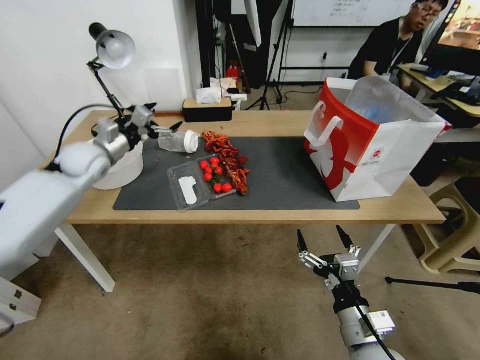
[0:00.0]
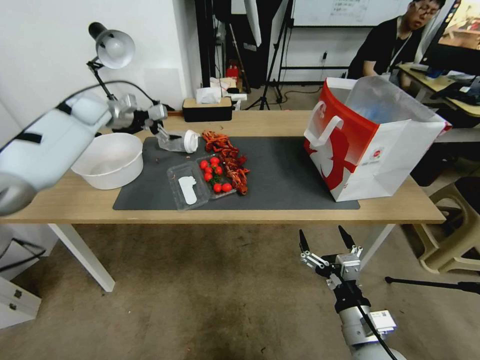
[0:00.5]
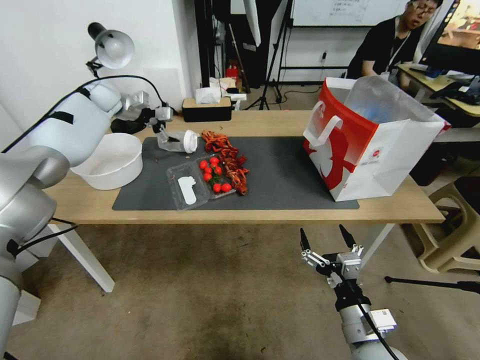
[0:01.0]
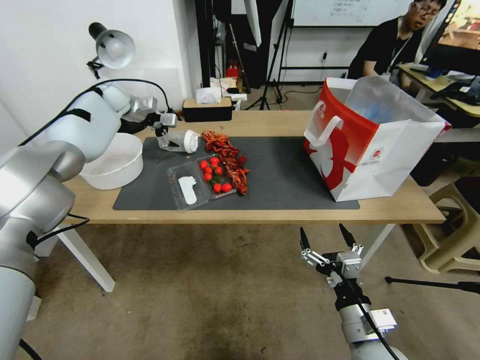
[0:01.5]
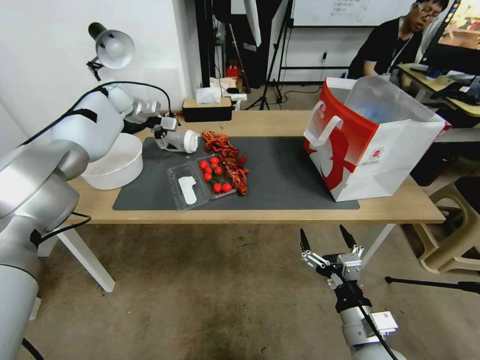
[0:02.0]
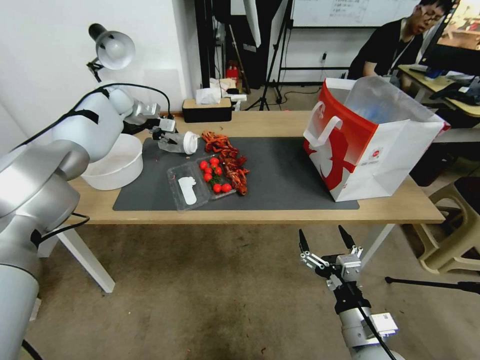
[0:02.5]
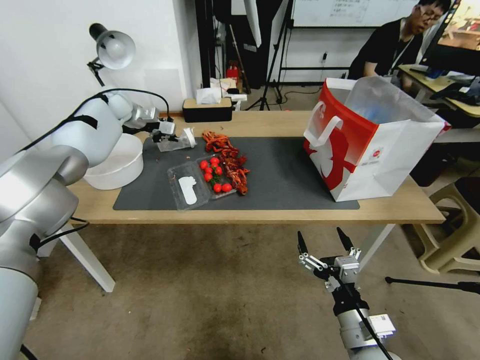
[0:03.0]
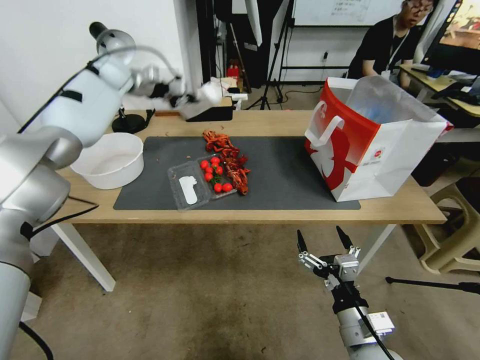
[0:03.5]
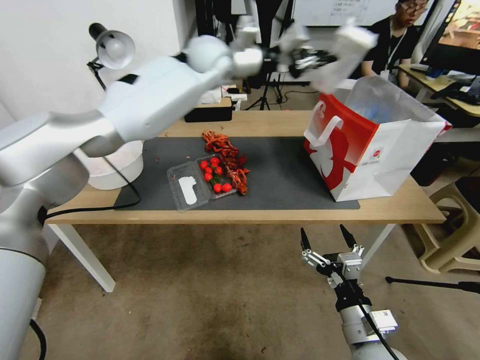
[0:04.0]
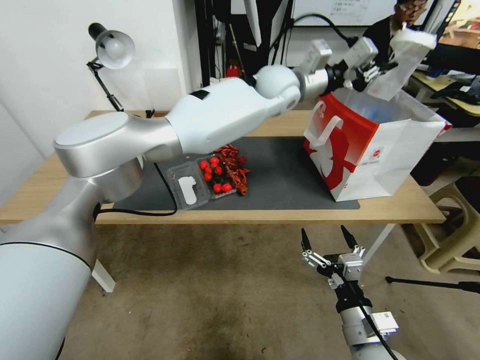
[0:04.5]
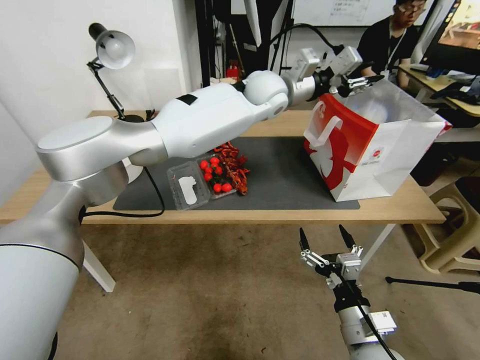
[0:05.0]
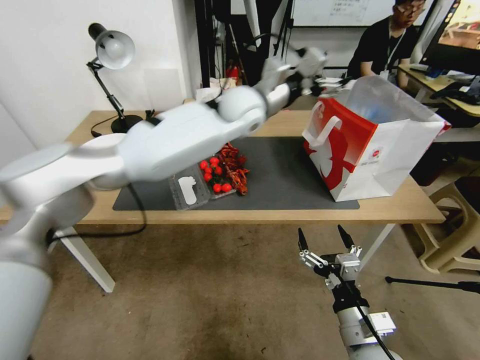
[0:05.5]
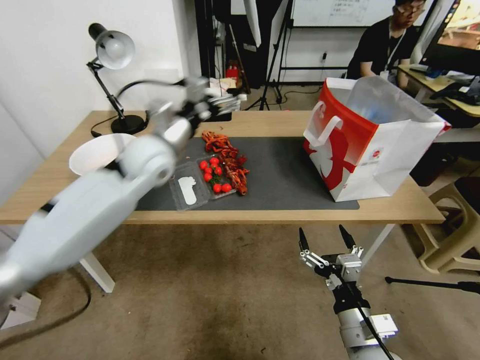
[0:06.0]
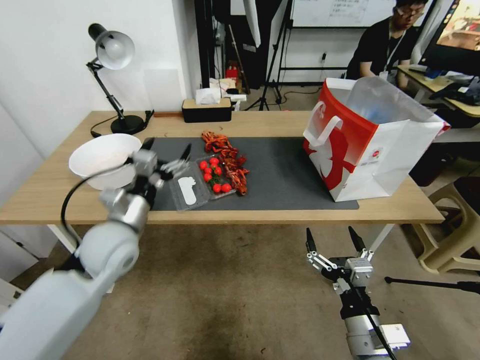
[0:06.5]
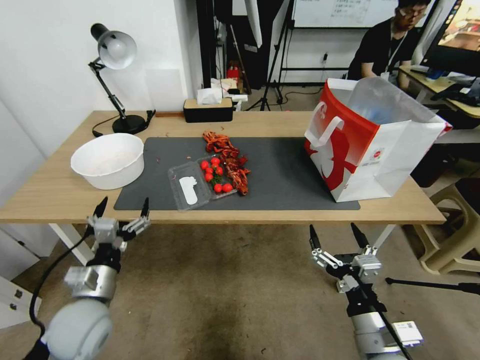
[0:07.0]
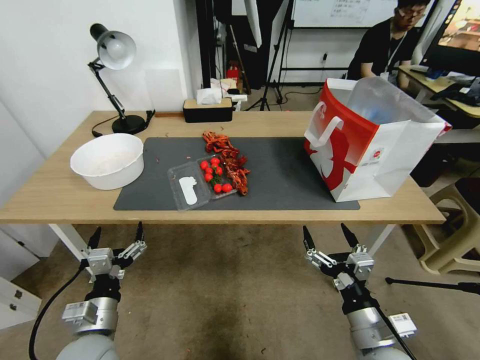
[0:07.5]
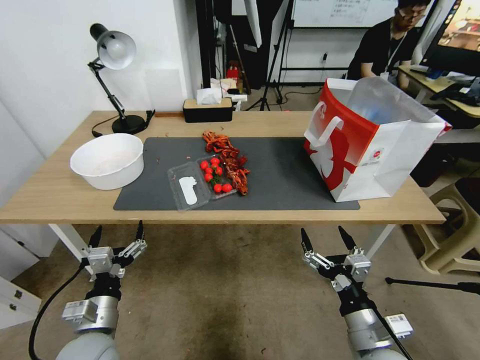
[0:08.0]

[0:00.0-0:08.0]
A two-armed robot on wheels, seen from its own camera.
0:00.0 to 0:02.0: The left gripper travels forward and upward by some 20 cm.
0:02.0 to 0:04.0: The left gripper goes roughly 30 cm to the right, and closes.
0:04.0 to 0:06.0: The left gripper heads backward, to the left and downward, covering approximately 30 cm, and opens.
0:06.0 to 0:08.0: The left gripper heads backward and downward, covering about 35 cm.

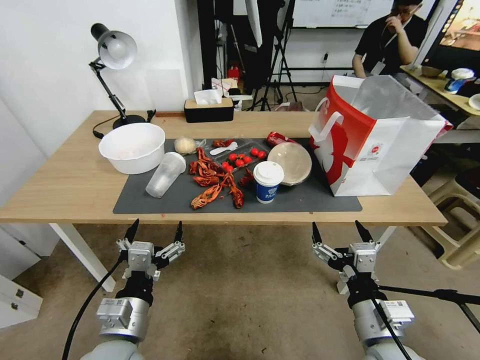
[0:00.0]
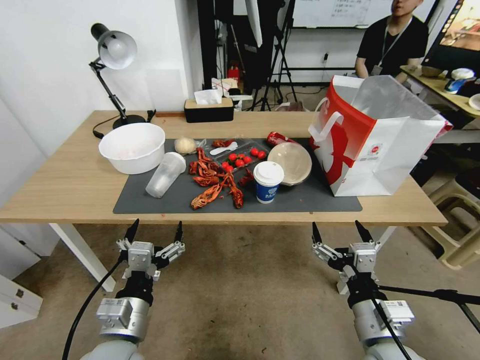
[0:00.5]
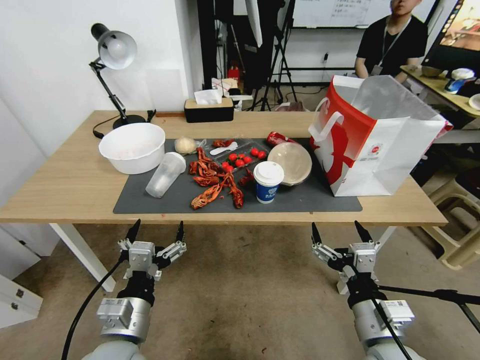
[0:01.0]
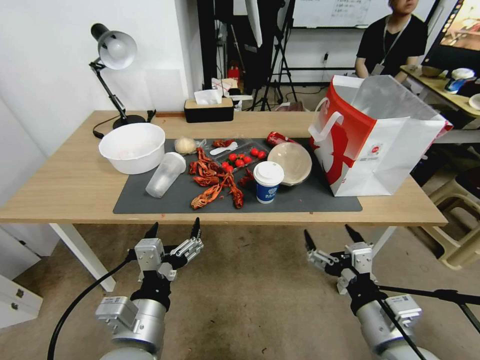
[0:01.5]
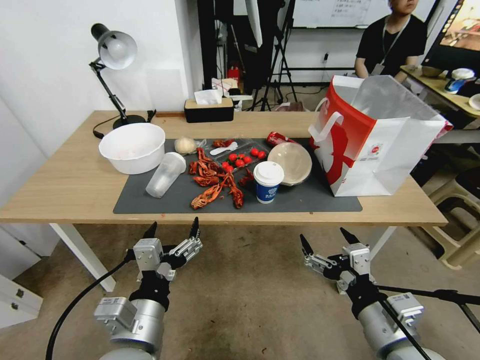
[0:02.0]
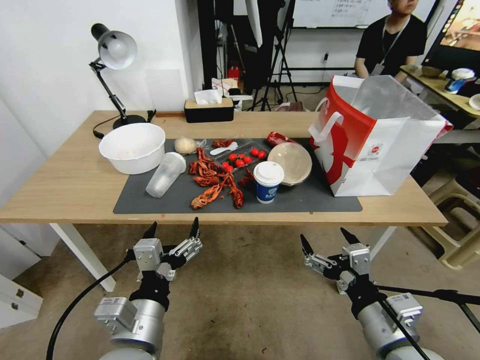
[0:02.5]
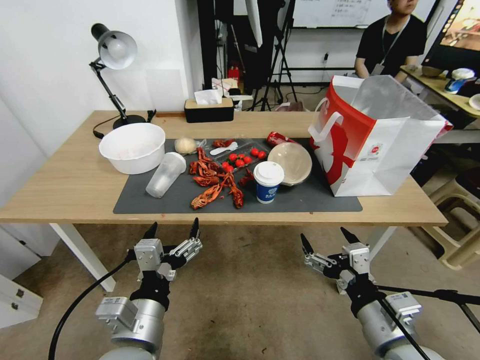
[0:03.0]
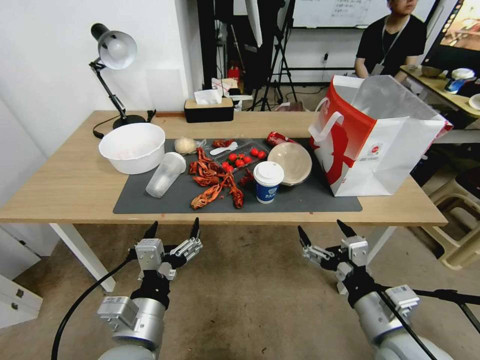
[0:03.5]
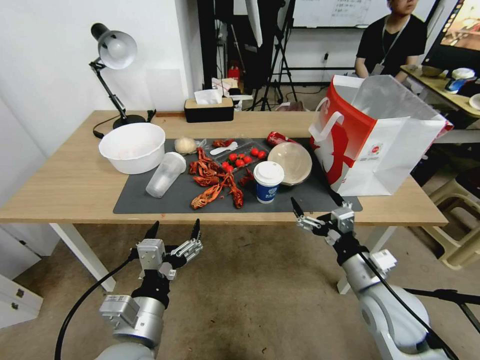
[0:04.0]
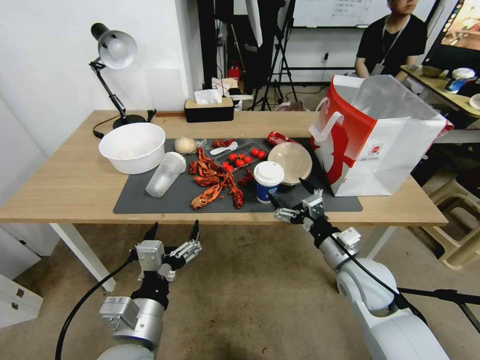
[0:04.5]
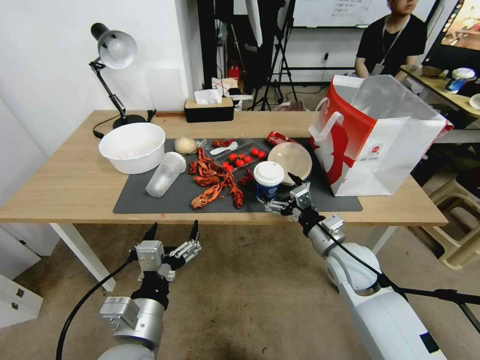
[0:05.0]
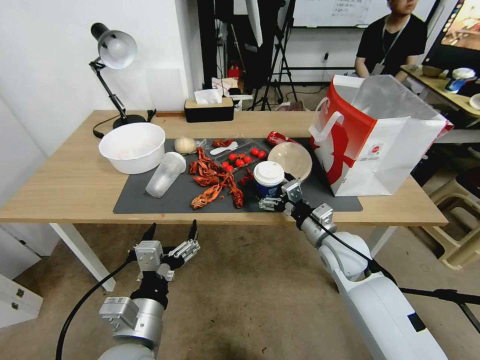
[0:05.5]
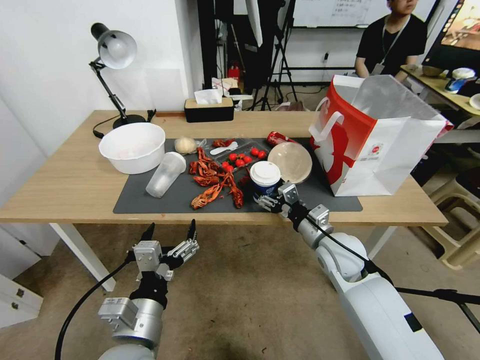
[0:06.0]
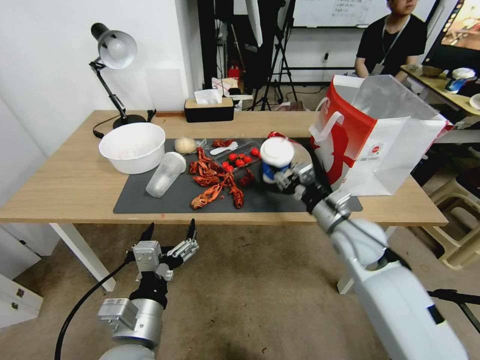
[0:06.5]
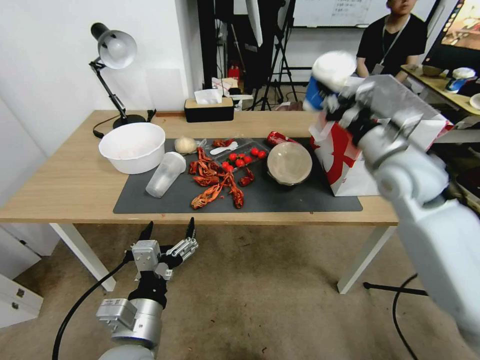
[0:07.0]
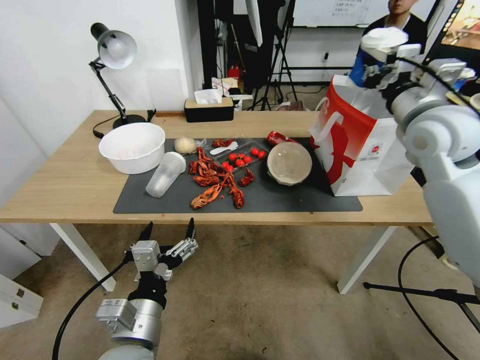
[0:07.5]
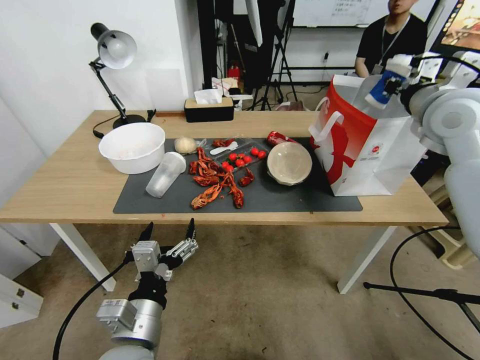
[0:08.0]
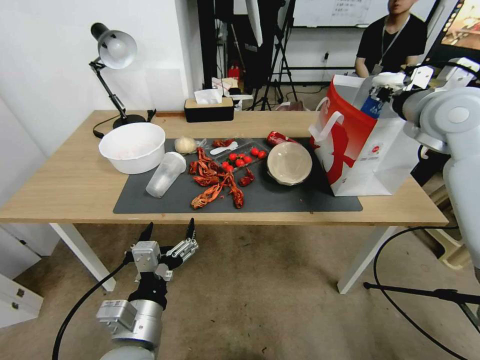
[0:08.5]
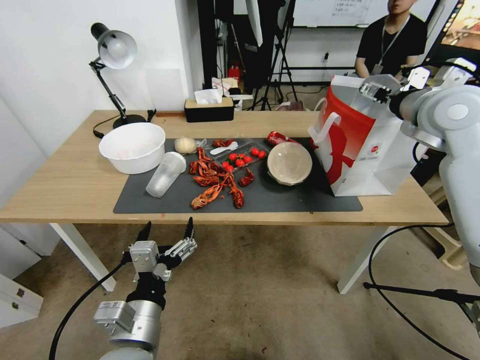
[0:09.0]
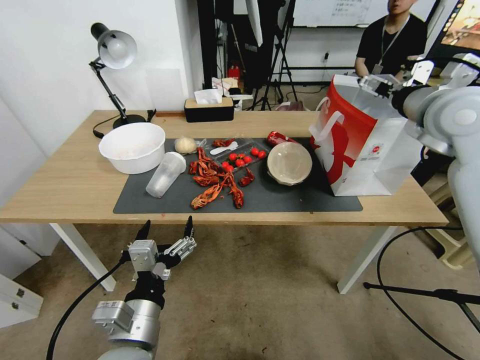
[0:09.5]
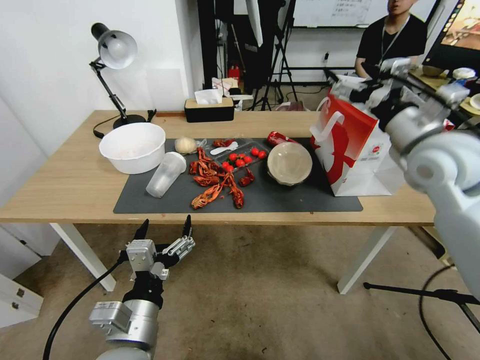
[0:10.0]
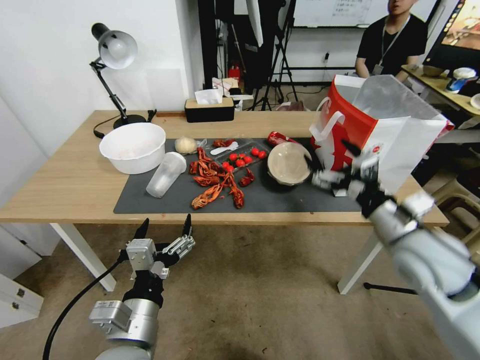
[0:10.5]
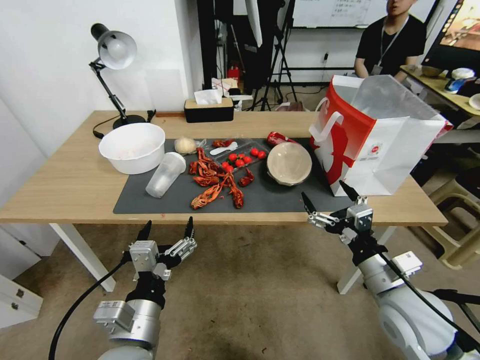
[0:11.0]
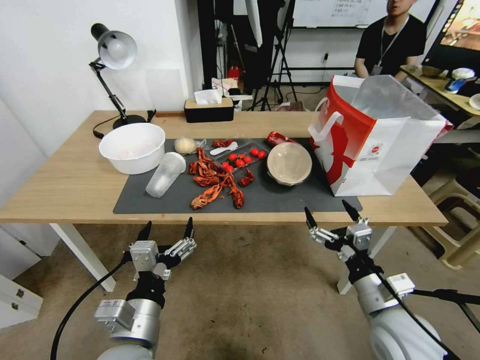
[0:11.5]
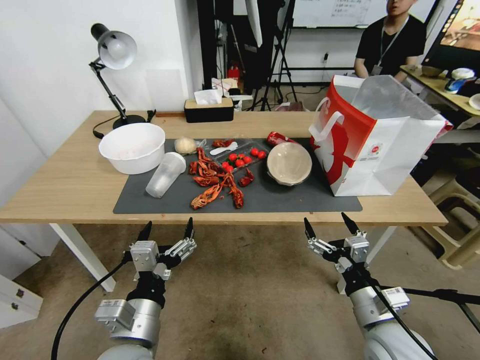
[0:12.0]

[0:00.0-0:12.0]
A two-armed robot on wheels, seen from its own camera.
0:02.0 to 0:04.0: The right gripper shifts roughly 10 cm forward.
0:04.0 to 0:06.0: The right gripper heads forward, covering some 10 cm.
0:06.0 to 0:08.0: The right gripper heads upward and to the right, covering some 30 cm, and closes up.
0:08.0 to 0:10.0: The right gripper moves downward, approximately 5 cm, and opens its fingers.
0:10.0 to 0:12.0: The right gripper heads downward and backward, covering some 35 cm.

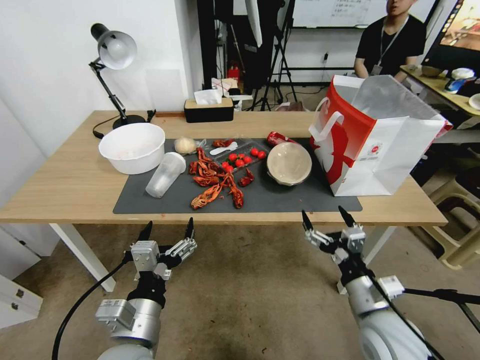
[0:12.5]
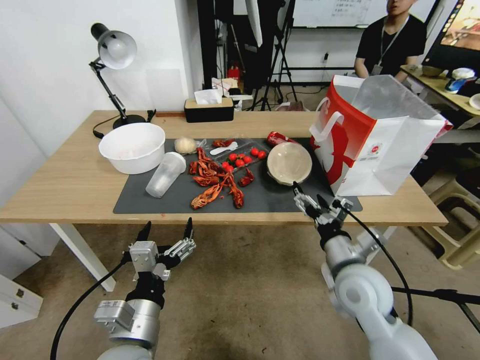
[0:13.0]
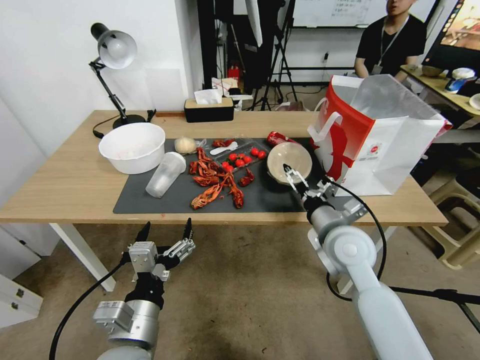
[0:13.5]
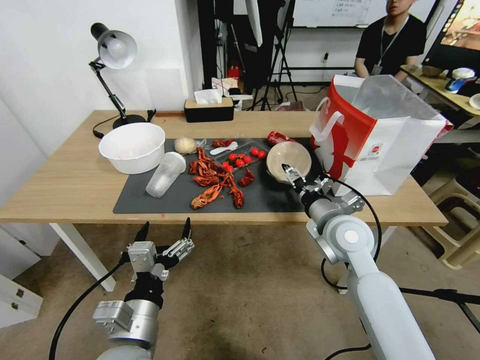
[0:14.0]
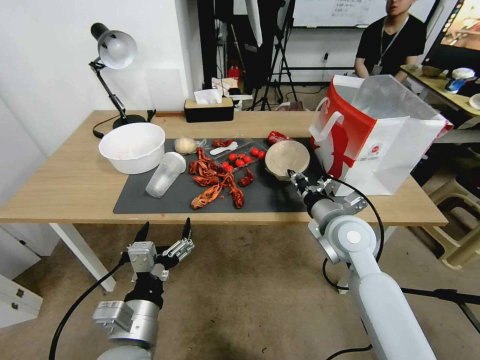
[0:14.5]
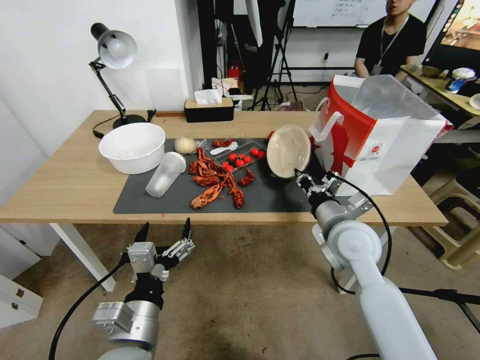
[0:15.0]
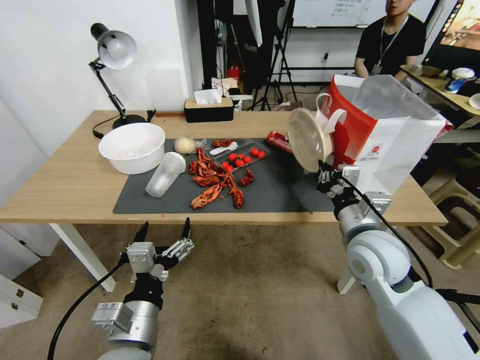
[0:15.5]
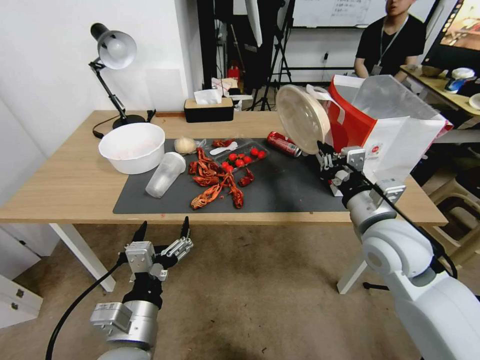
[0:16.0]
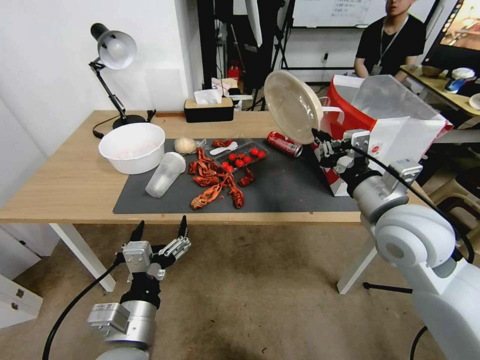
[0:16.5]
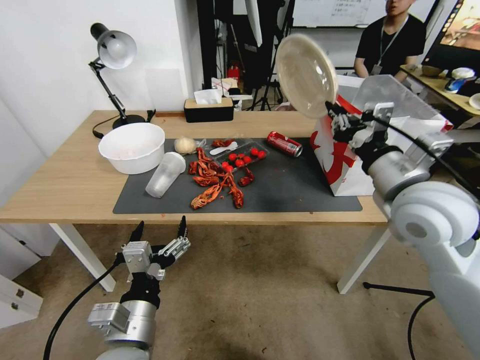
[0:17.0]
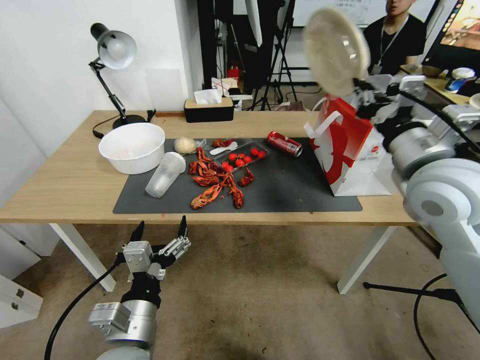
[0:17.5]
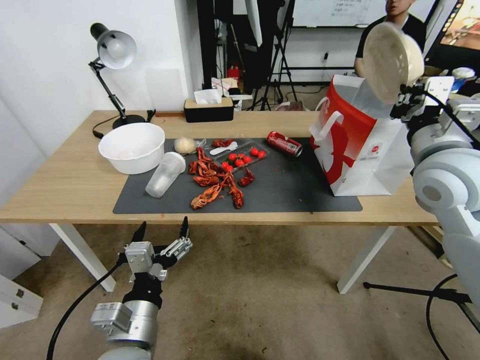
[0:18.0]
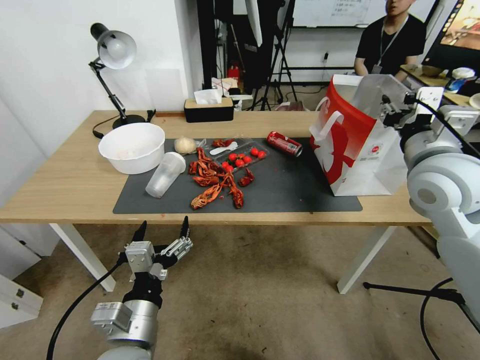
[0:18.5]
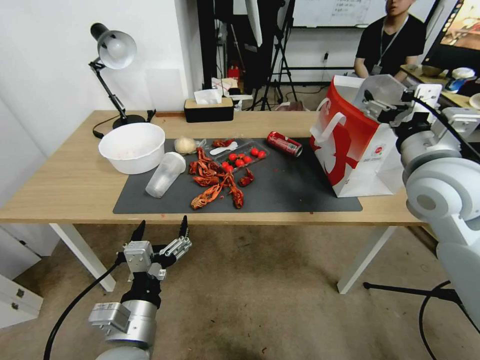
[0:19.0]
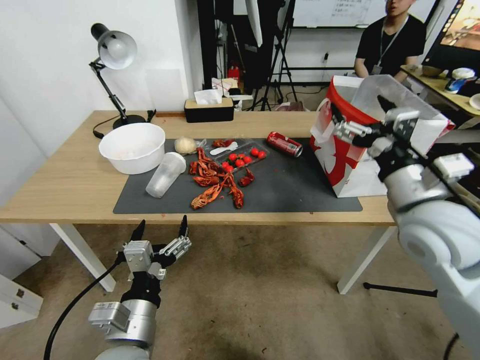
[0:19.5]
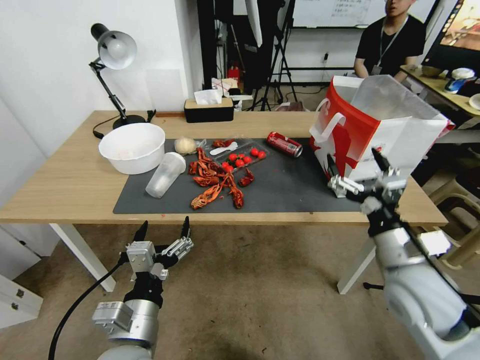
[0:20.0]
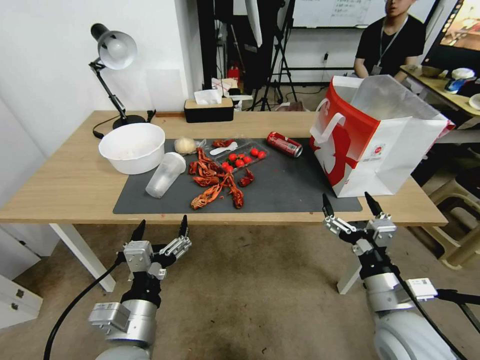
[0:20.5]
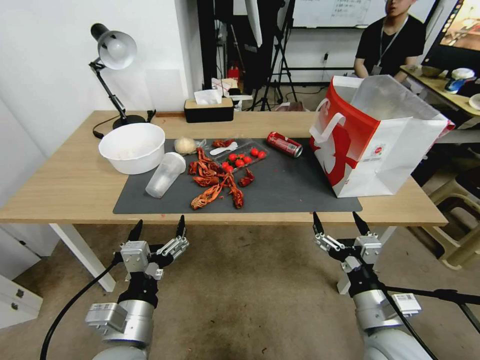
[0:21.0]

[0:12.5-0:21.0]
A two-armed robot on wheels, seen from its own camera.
0:12.5 to 0:14.5: The right gripper heads forward and upward, covering approximately 20 cm, and closes up.
0:14.5 to 0:16.5: The right gripper shifts about 5 cm upward.
0:16.5 to 0:19.0: The right gripper heads upward, covering some 10 cm, and opens.
0:19.0 to 0:21.0: The right gripper goes roughly 30 cm downward and backward.
